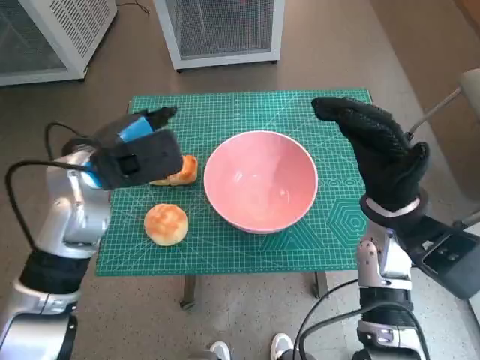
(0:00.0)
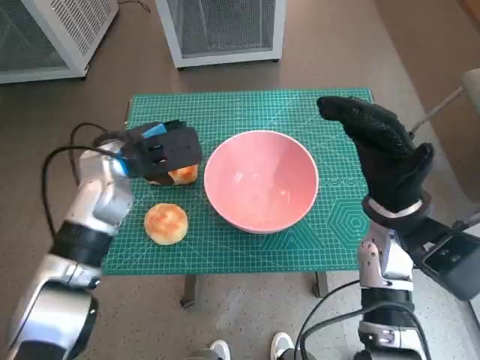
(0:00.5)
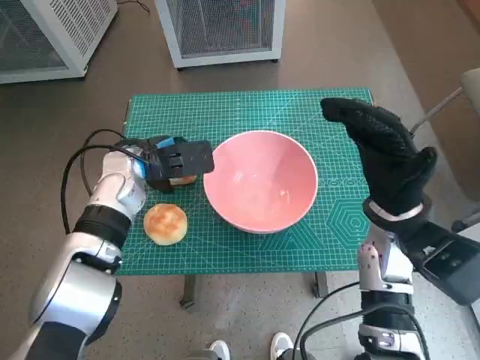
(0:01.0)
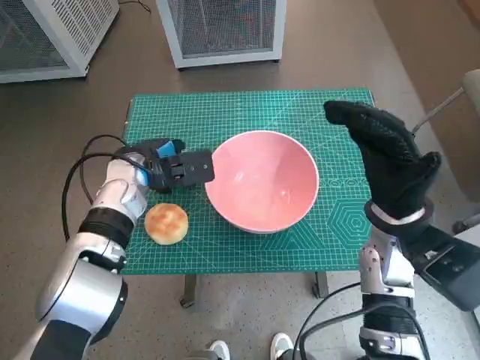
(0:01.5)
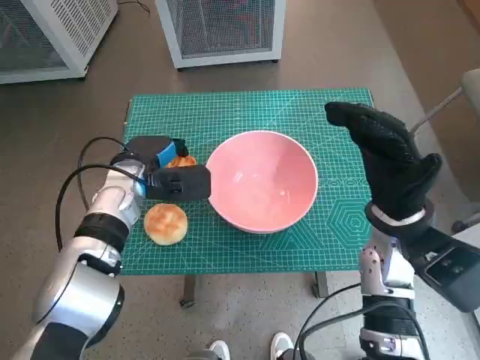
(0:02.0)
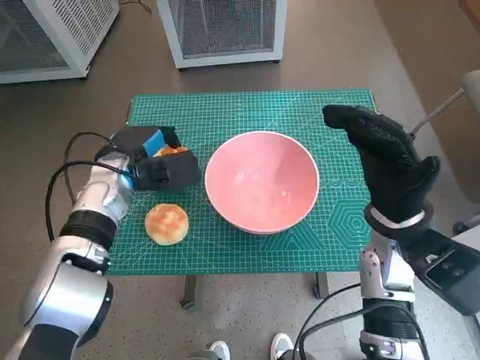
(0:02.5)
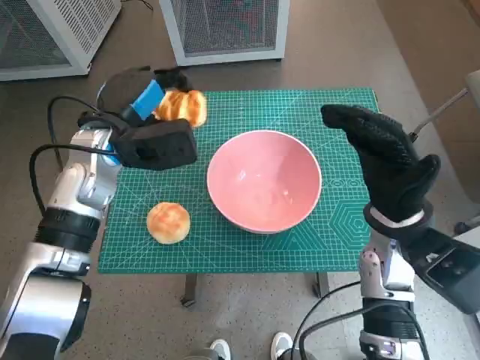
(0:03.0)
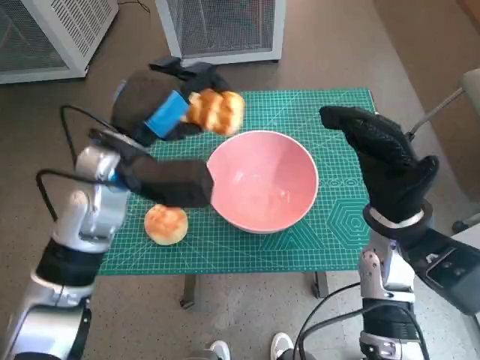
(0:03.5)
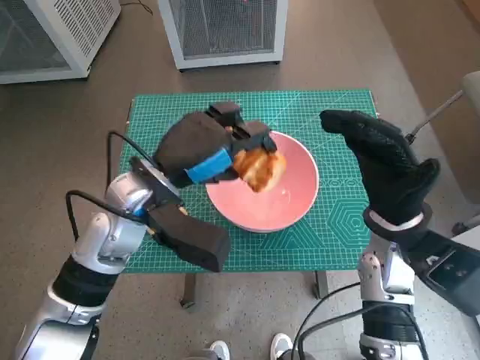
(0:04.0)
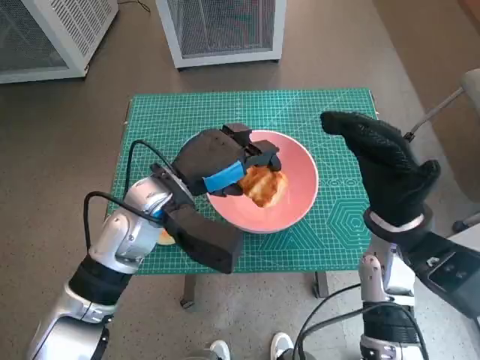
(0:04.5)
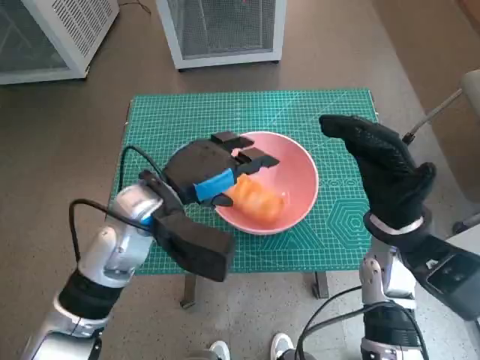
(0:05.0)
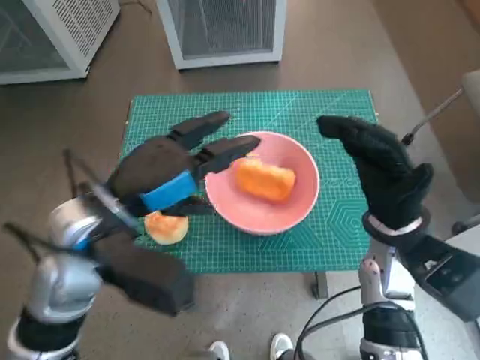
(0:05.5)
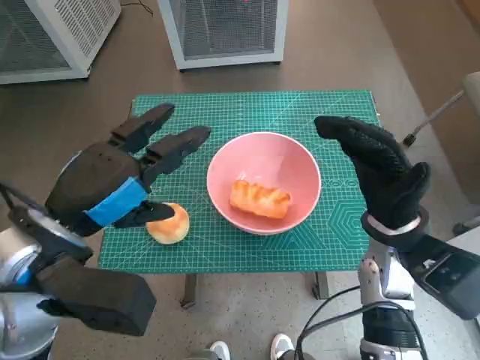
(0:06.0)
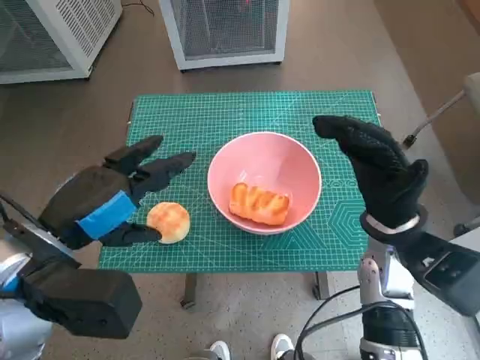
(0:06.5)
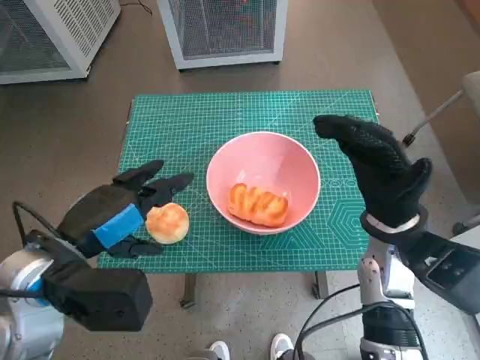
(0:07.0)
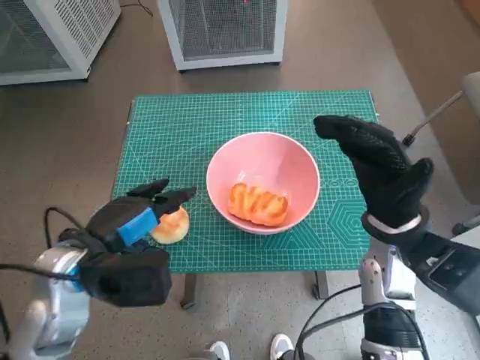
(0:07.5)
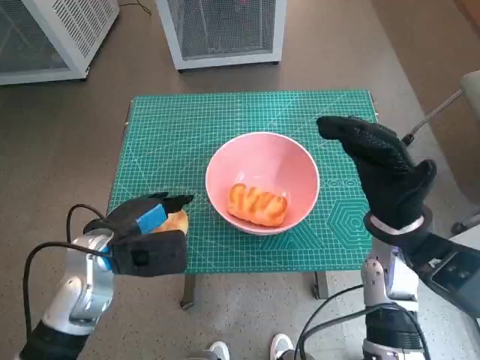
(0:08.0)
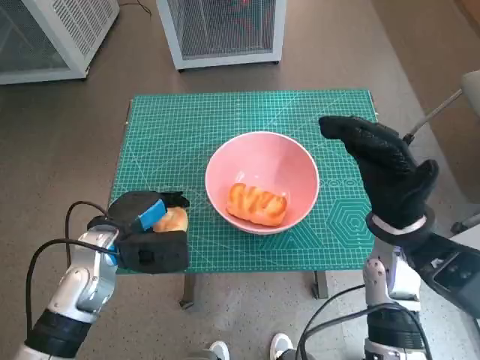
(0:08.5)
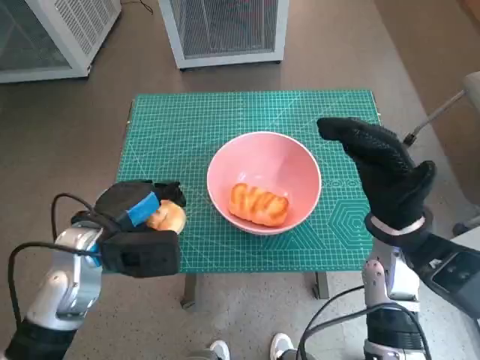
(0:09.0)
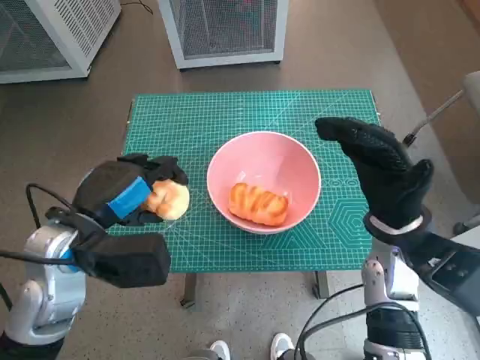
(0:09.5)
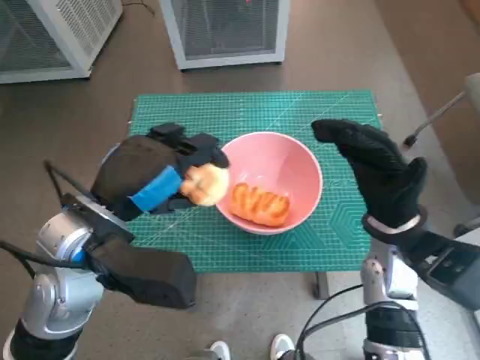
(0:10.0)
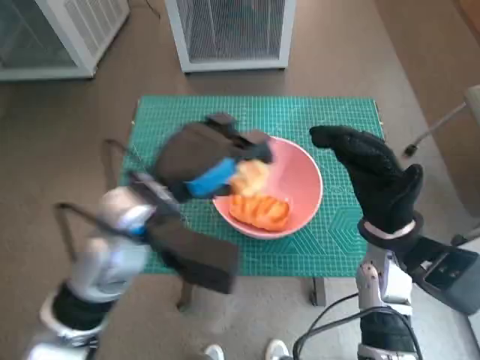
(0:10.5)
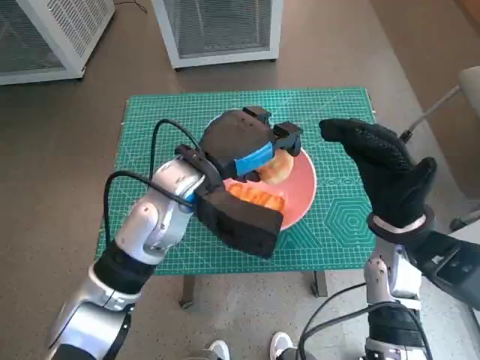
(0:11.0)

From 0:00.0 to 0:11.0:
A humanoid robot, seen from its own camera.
Task of the whole recording: Push the bowl into the center of the table and put the bread into the bowl.
Step, from 0:02.0 to 0:04.5: Place the long bread in pink bowl with left hand.
Step, from 0:05.0 to 0:08.0: Grasp the round bread with left hand.
From 0:00.0 to 0:02.0: The left hand heads downward and forward, covering roughly 10 cm.
From 0:02.0 to 0:03.5: The left hand moves upward, some 10 cm.
From 0:03.5 to 0:05.5: The left hand heads backward, covering roughly 5 cm.
From 0:05.5 to 0:07.5: The left hand moves downward and to the left, some 5 cm.
From 0:07.5 to 0:09.0: The left hand changes place by some 5 cm.
From 0:09.0 to 0:11.0: The left hand travels to the right and upward by roughly 15 cm.

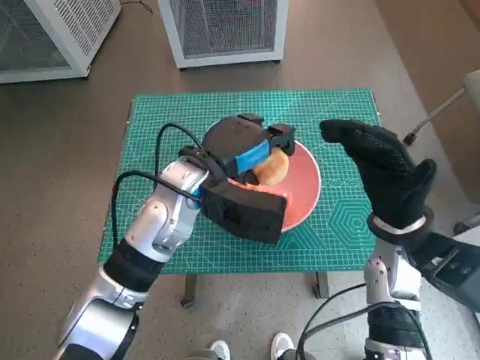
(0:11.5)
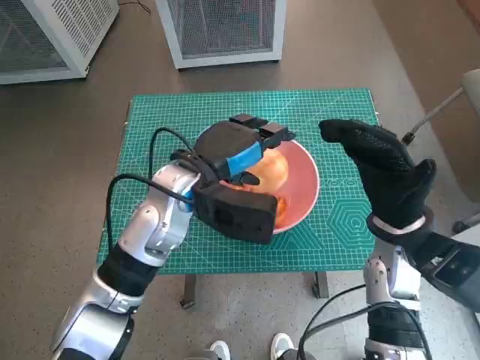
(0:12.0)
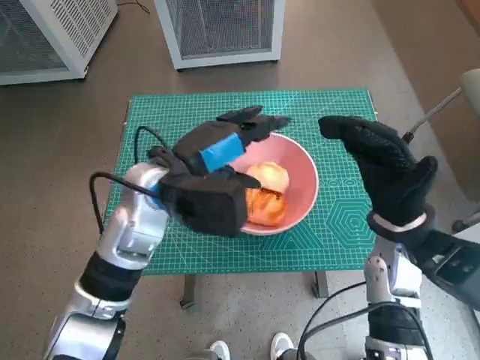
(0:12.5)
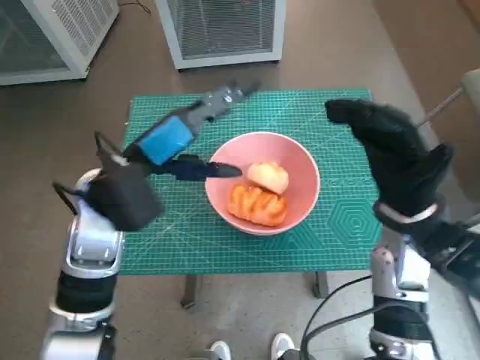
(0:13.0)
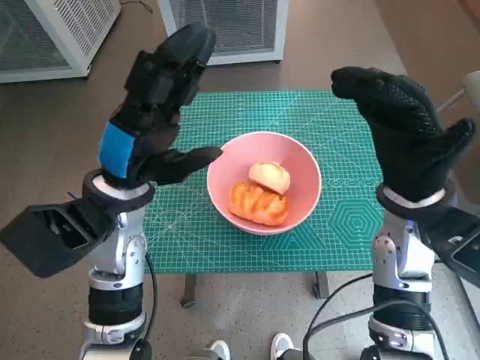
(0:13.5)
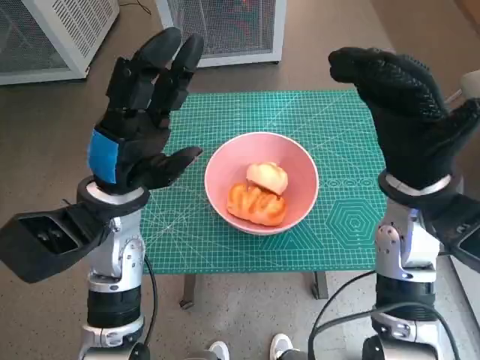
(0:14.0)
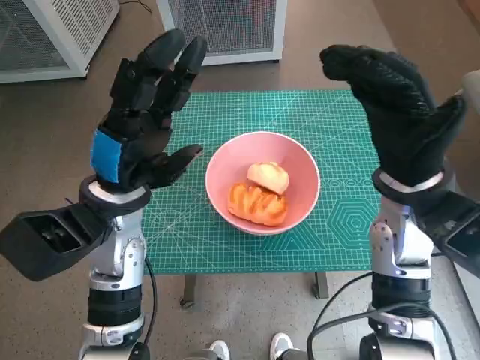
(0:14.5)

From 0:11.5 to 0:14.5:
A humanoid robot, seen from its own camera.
Task of the whole recording: Push the bowl into the center of the table and put the bread into the bowl.
From 0:11.5 to 0:13.0: The left hand moves to the left, about 10 cm.
